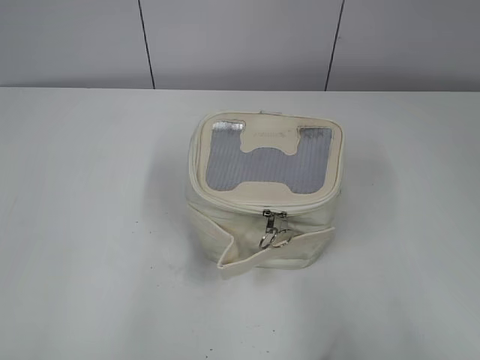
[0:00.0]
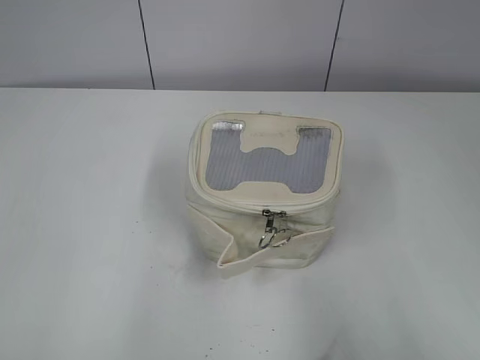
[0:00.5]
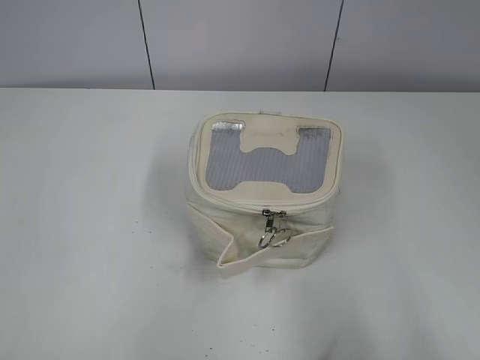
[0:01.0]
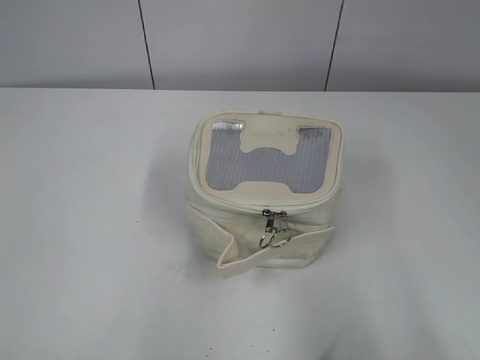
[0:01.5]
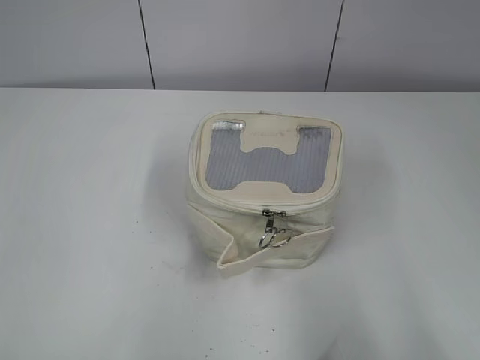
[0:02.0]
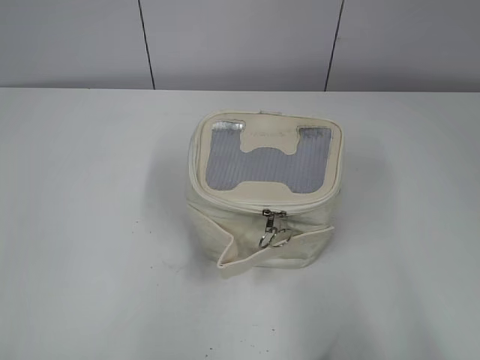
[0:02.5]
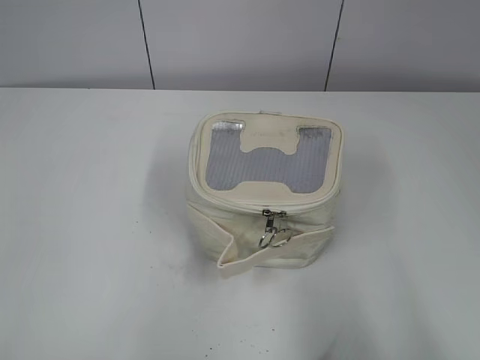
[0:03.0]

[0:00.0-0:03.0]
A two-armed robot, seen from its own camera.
0:01.5 to 0:03.0: Both grippers stay put.
